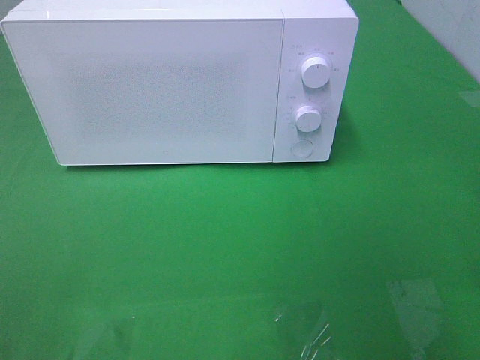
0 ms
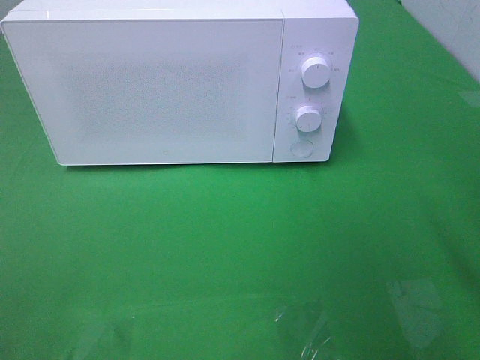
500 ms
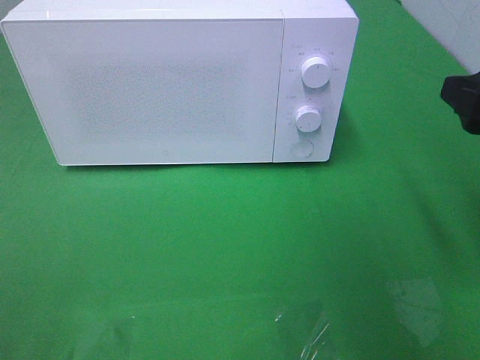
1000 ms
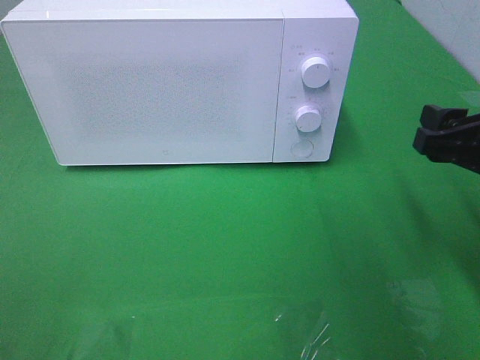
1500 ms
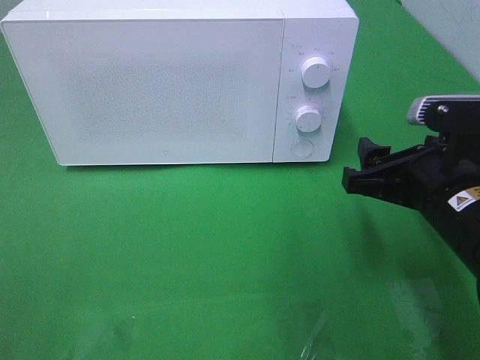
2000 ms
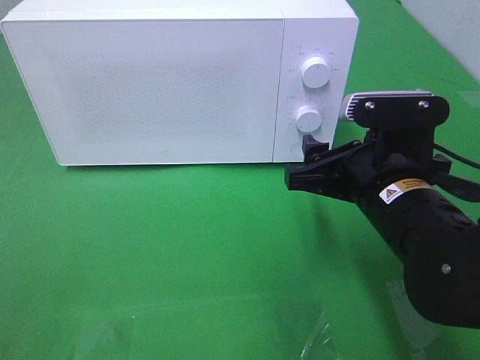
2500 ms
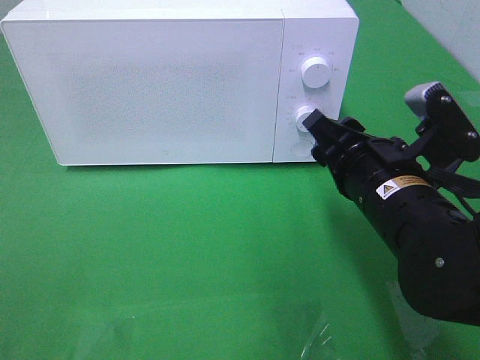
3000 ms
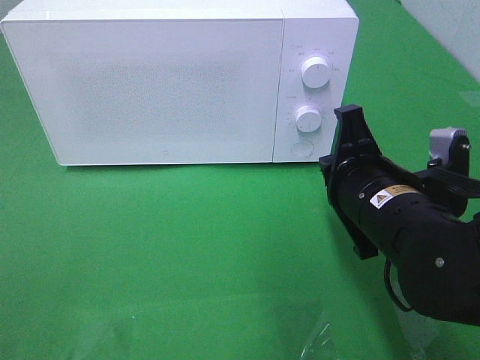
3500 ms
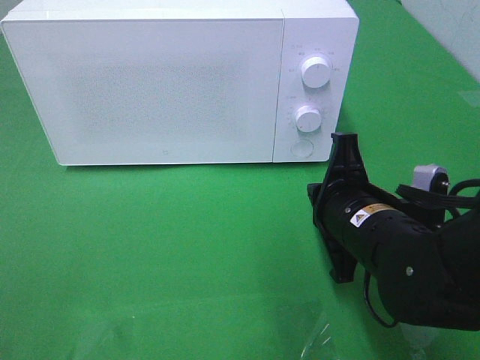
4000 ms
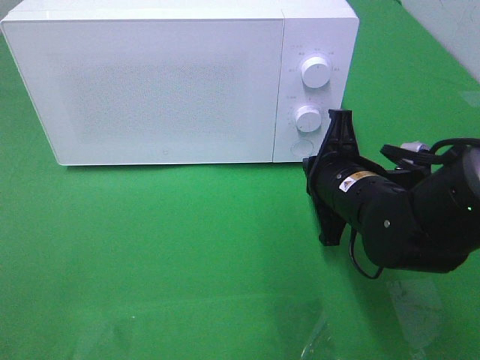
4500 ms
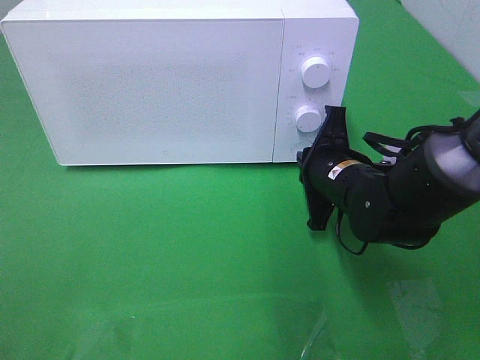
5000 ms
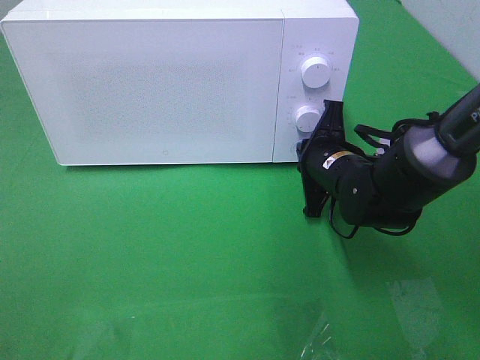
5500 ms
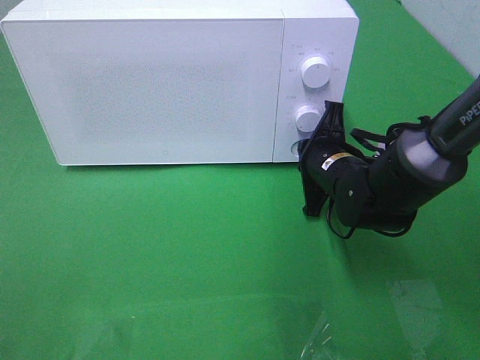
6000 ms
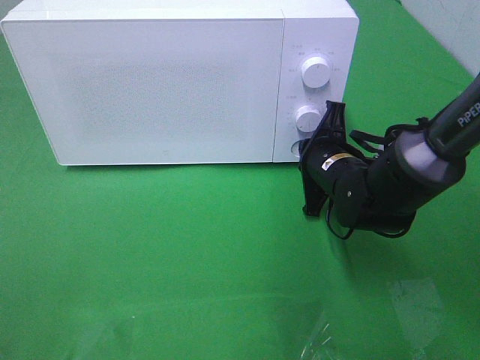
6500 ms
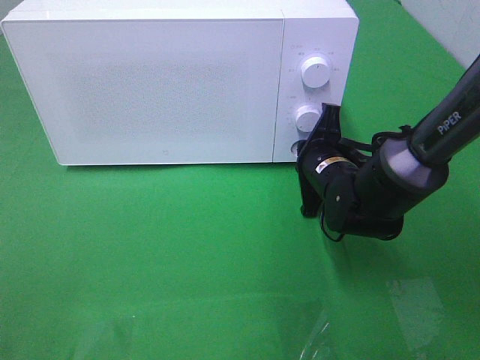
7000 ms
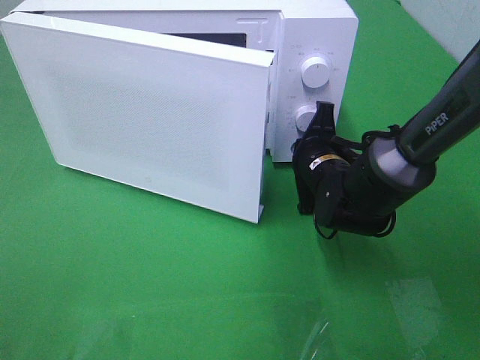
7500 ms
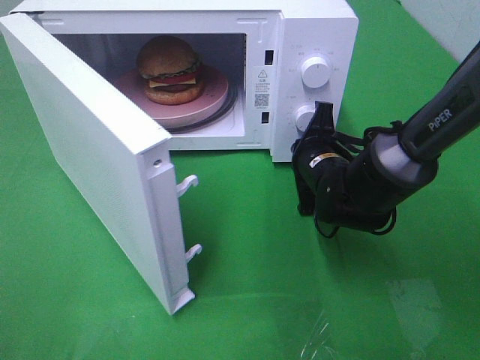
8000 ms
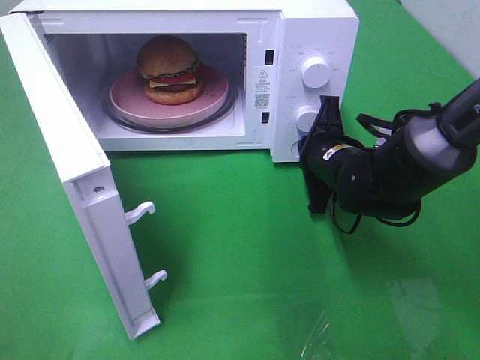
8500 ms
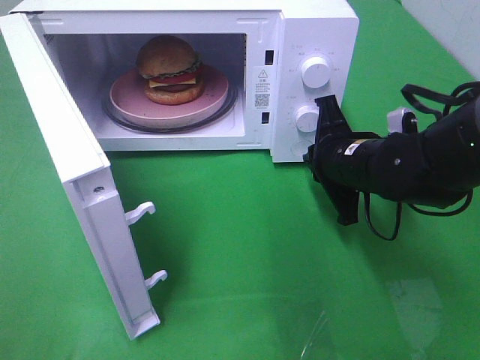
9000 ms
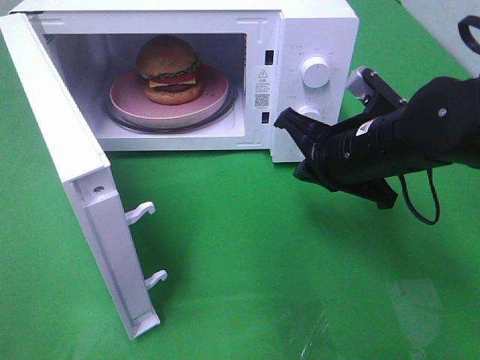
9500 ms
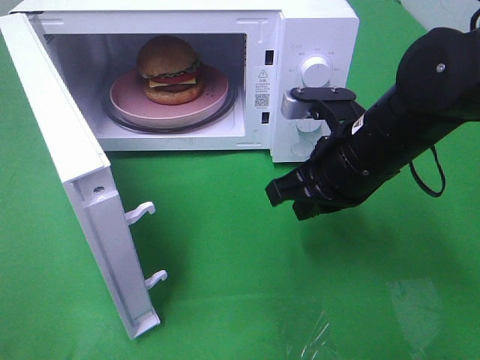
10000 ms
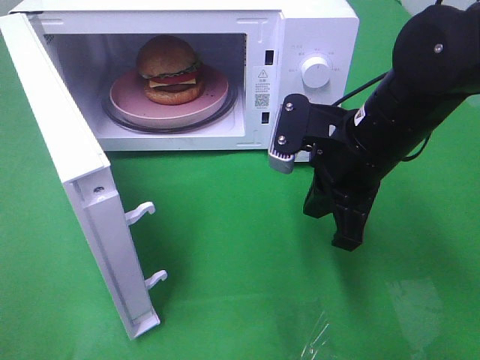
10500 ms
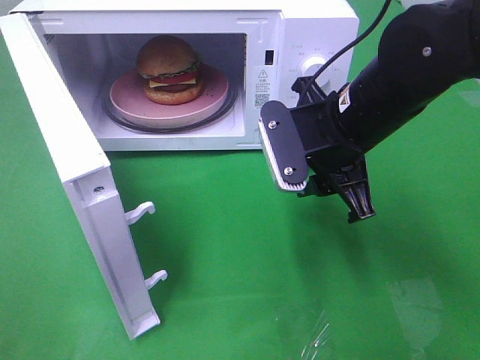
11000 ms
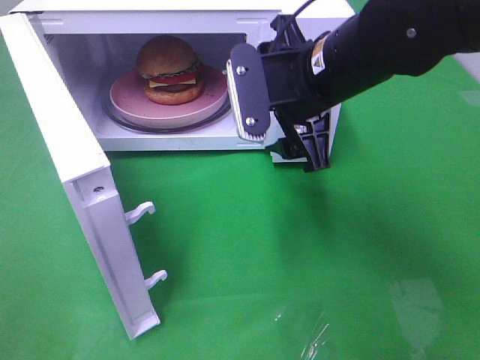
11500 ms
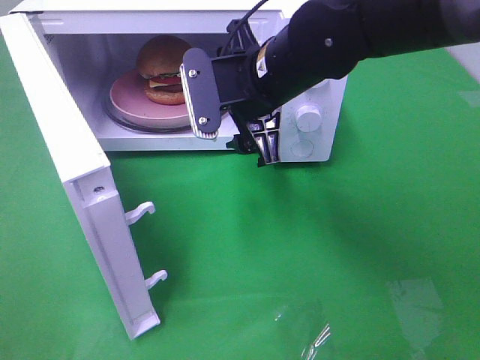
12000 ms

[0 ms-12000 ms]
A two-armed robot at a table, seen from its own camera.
Task of the whole recording: Heat the burger.
Step, 0 ms to 9000 ms: Right hand: press the switch.
0 ms to 2000 ms: The right gripper heads forward, downward and to the left, covering approximately 20 cm.
2000 ms to 4000 ms: The right gripper goes roughly 5 cm to the left, and closes up.
4000 ms to 6000 ms: The right gripper shifts about 10 cm forward.
8000 ms to 10000 ms: The right gripper goes roughly 15 cm upward and backward.
10000 ms to 12000 ms: The right gripper goes about 10 cm to the left and forward, and opens up.

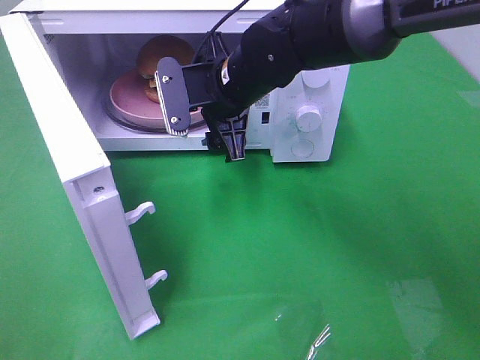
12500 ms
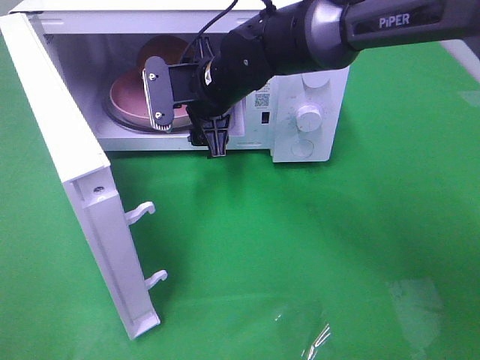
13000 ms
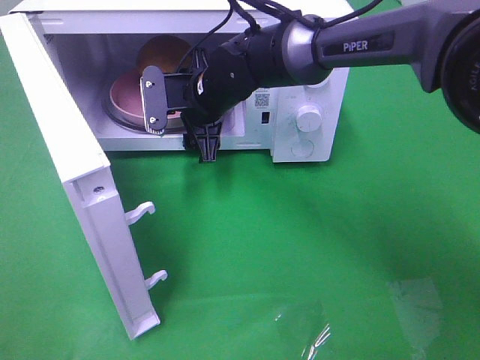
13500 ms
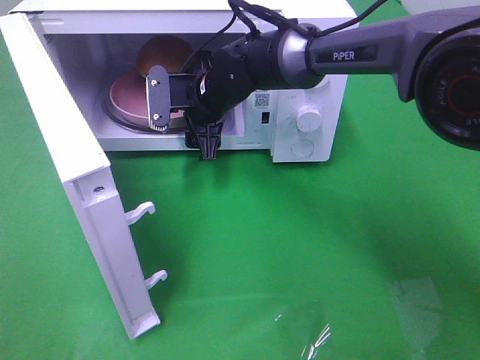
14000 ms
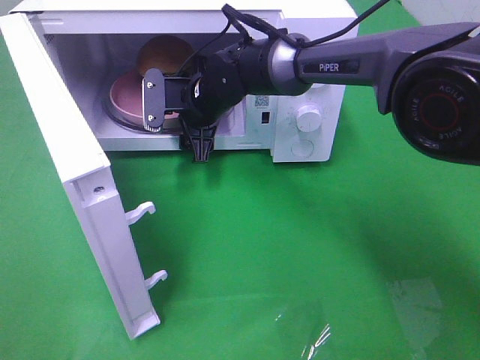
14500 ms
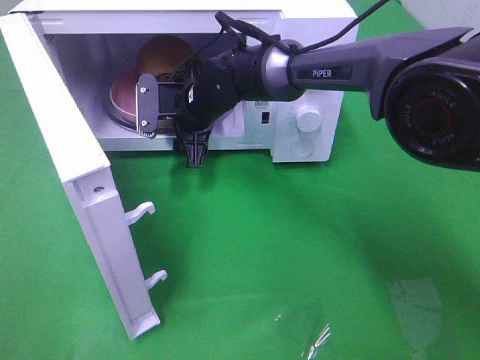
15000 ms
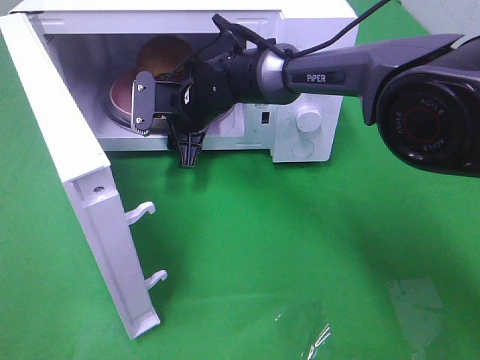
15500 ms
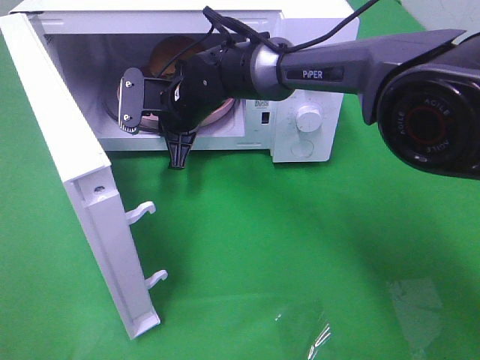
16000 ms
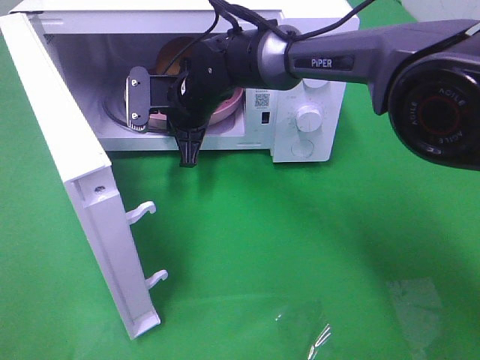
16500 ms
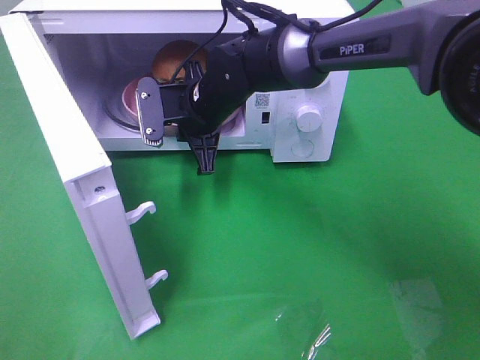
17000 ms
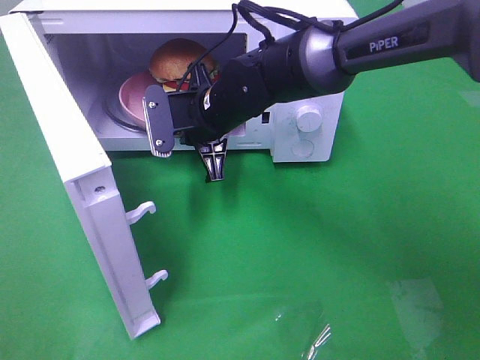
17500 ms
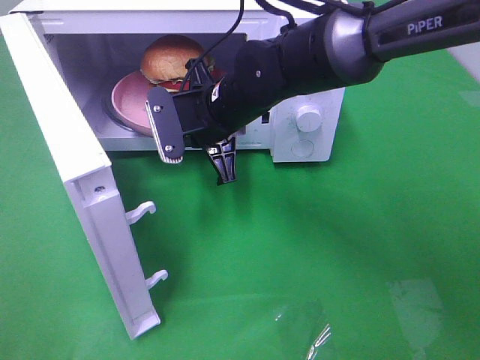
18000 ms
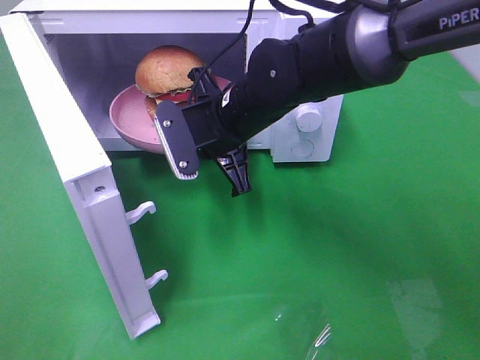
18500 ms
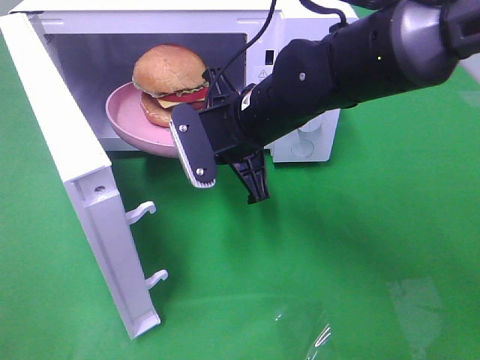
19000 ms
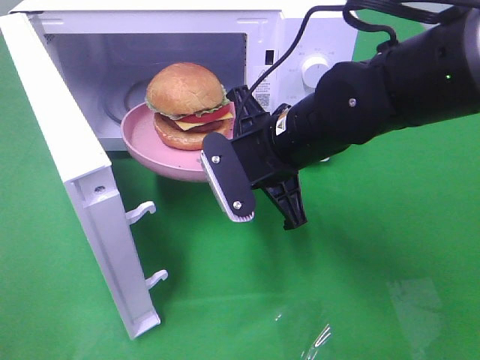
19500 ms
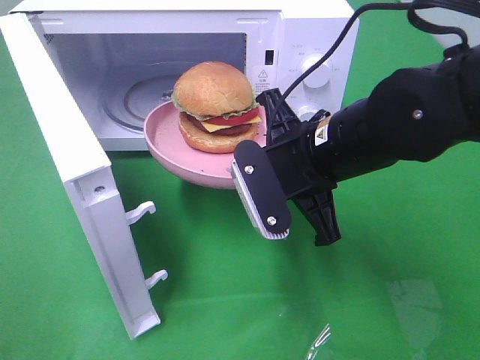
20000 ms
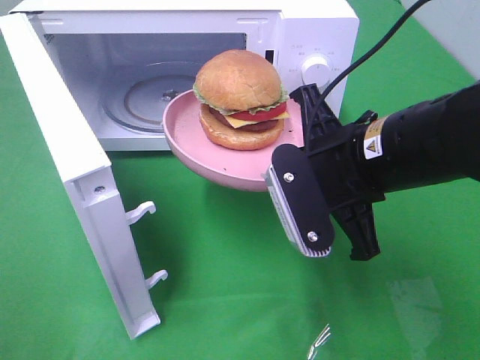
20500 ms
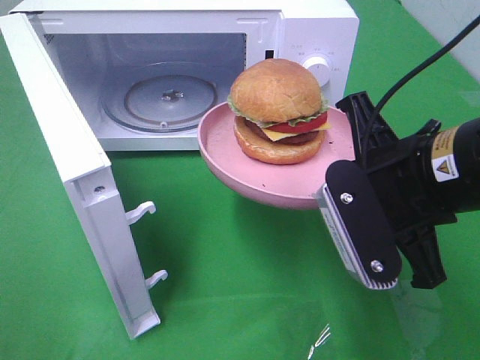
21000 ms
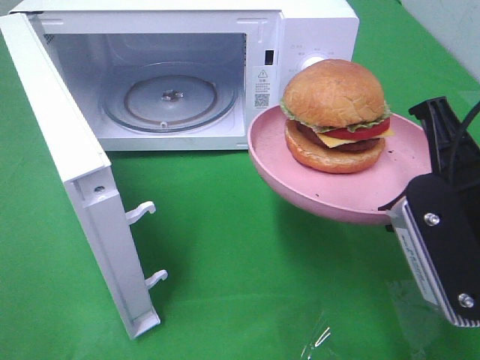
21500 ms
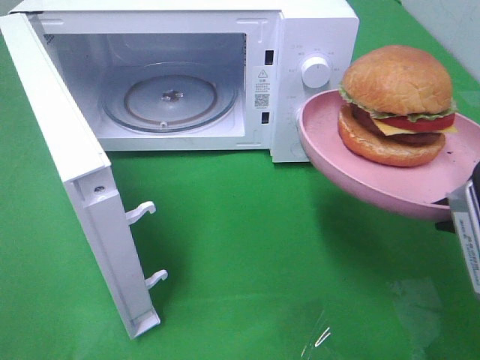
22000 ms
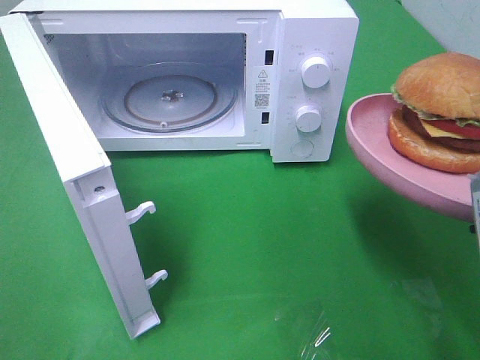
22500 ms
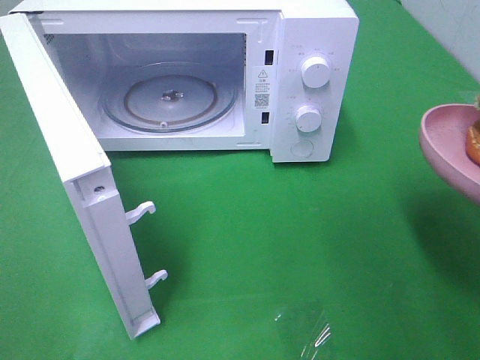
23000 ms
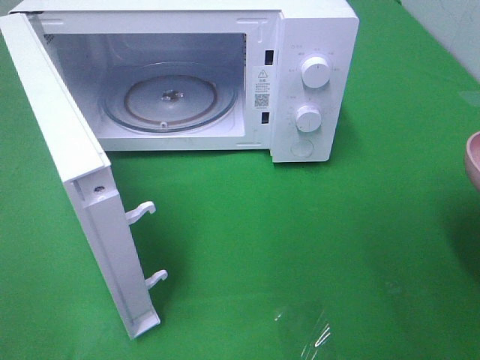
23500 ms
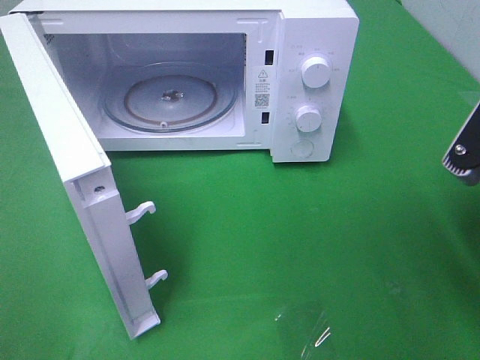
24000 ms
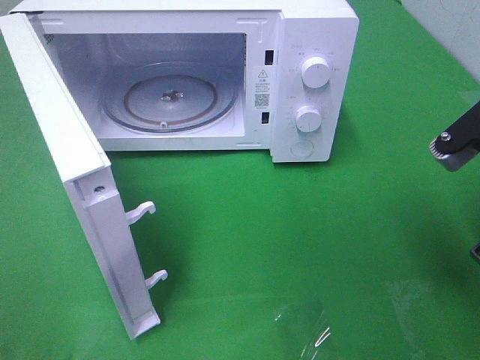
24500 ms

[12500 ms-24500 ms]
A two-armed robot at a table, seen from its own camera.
Task of the whole recording: Heat the burger.
Step, 12500 ms to 16000 ms: Right hand: grab the plate with the hamburger.
12500 ms to 14500 ms: The right gripper travels forward and downward by roughly 10 cm.
14500 ms to 16500 ms: The right gripper closes.
16500 ms to 18500 ms: The right gripper travels backward and to the right by approximately 10 cm.
18500 ms to 20500 ms: The right gripper shifts approximately 15 cm backward and to the right.
20500 ms to 22500 ms: The right gripper travels to the right and backward by approximately 15 cm.
22500 ms to 24500 ms: The right gripper travels forward by approximately 5 cm.

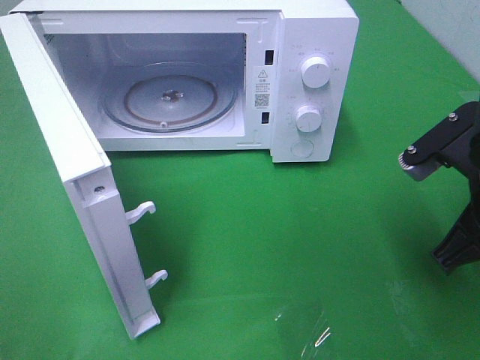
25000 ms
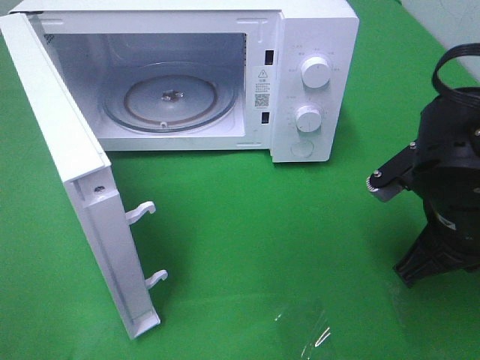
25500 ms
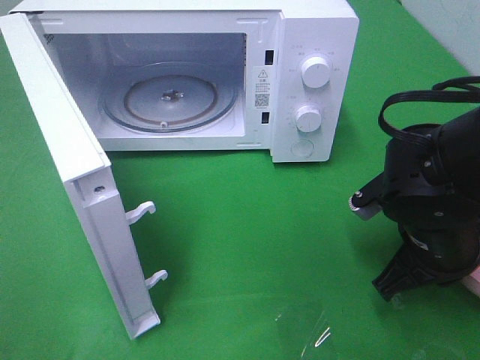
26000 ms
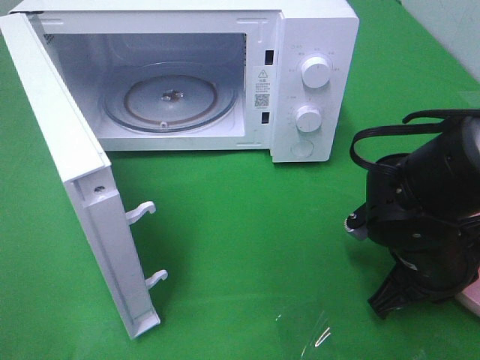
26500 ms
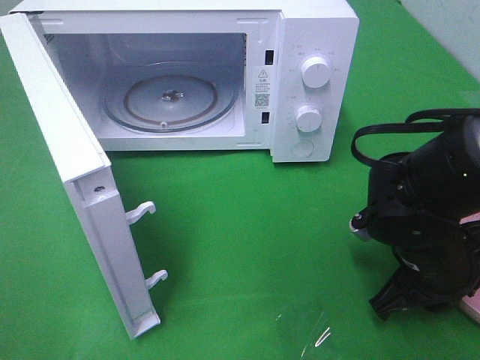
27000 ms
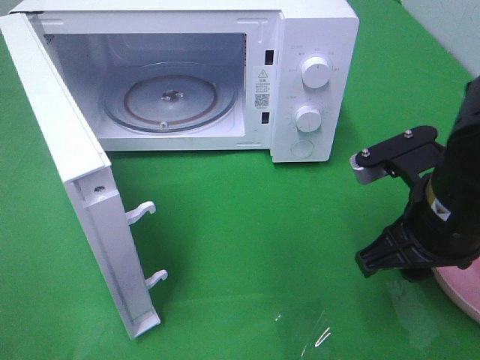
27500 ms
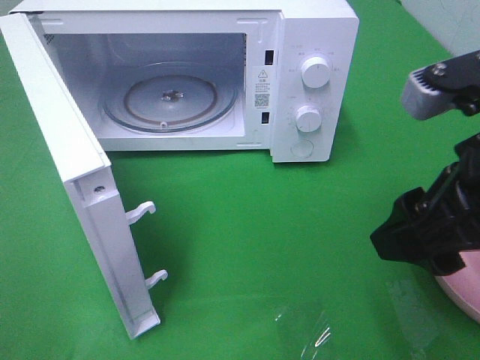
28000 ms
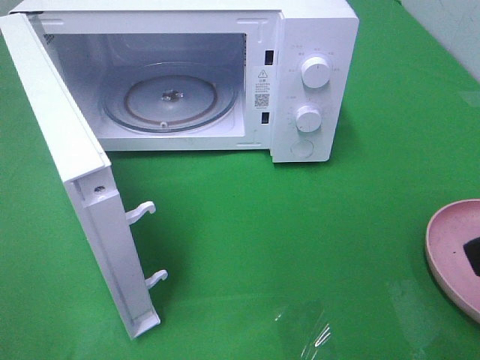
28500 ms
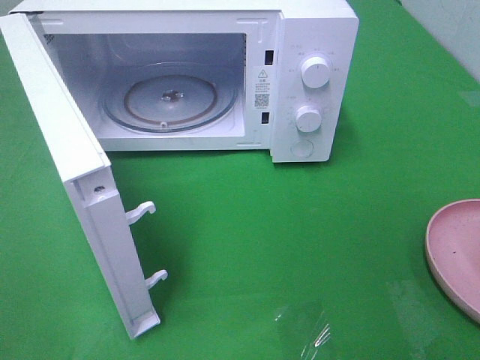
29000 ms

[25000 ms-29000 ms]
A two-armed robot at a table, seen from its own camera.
Task of the whole recording: Heat the burger.
Step, 25000 ms to 27000 ms: Right hand: place the plate on the table.
25000 ms to 27000 ms: The right gripper travels downward by roughly 10 cm.
27000 ms to 29000 ms: The right gripper heads upward, backward and to the right, covering some 25 cm, and opens up.
